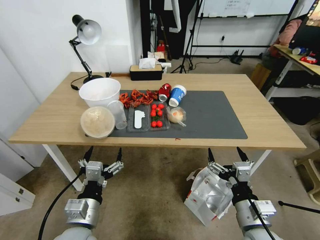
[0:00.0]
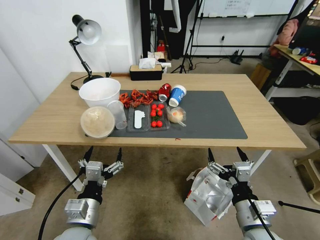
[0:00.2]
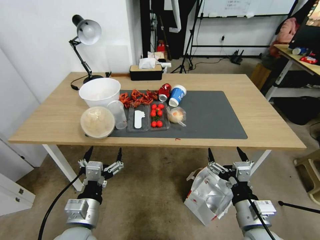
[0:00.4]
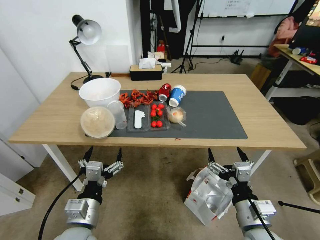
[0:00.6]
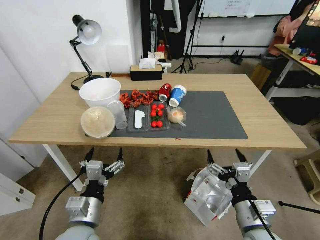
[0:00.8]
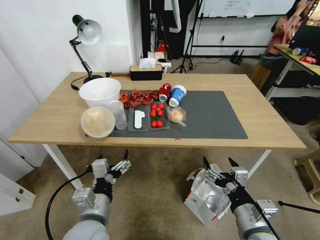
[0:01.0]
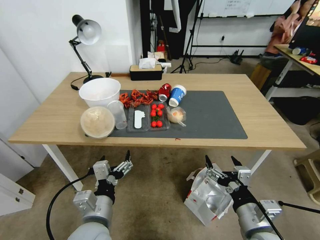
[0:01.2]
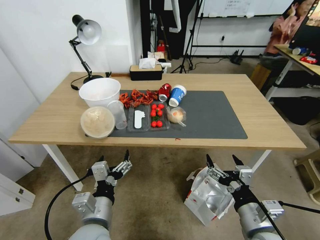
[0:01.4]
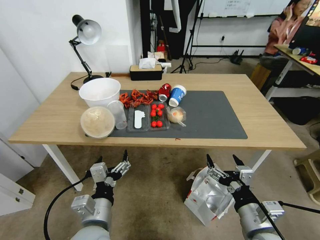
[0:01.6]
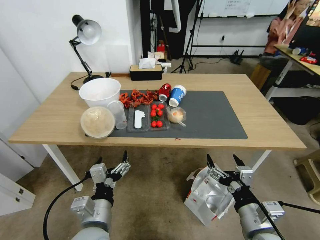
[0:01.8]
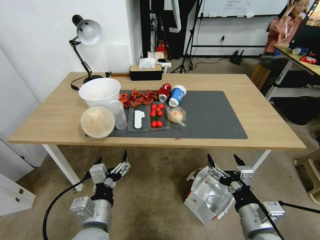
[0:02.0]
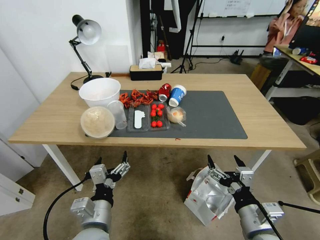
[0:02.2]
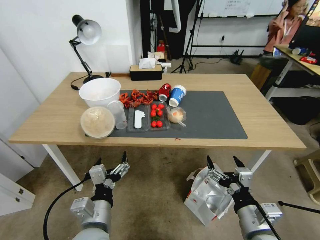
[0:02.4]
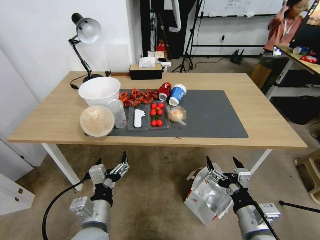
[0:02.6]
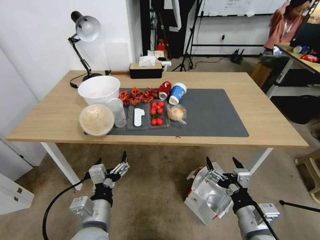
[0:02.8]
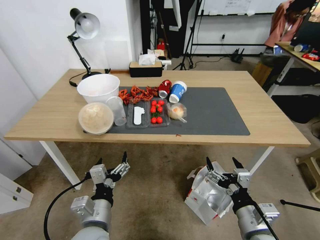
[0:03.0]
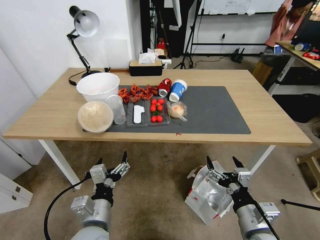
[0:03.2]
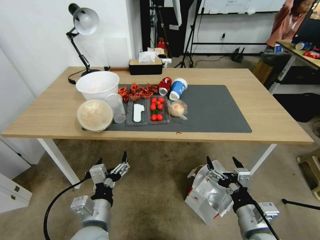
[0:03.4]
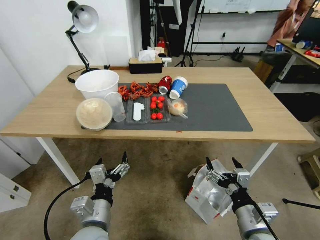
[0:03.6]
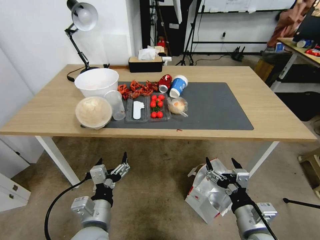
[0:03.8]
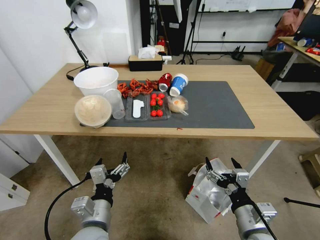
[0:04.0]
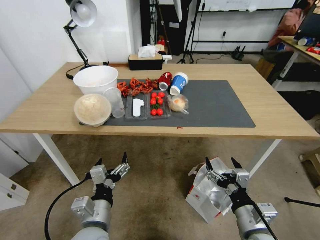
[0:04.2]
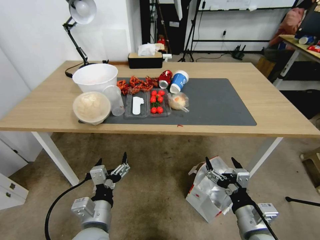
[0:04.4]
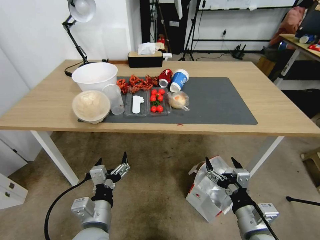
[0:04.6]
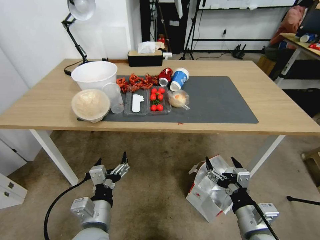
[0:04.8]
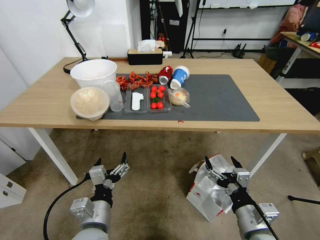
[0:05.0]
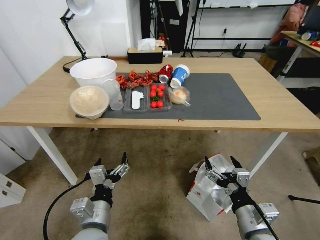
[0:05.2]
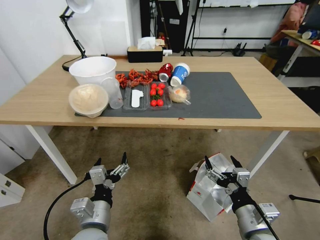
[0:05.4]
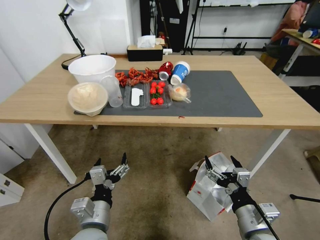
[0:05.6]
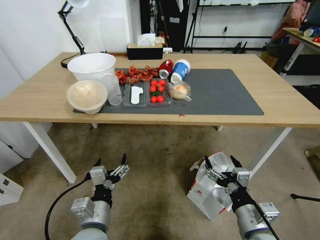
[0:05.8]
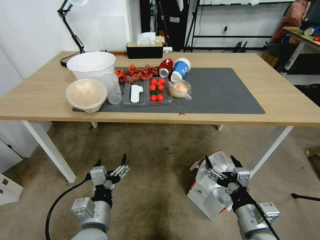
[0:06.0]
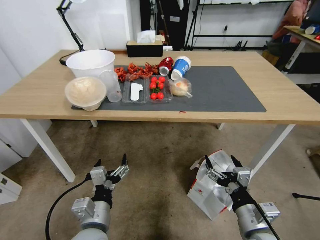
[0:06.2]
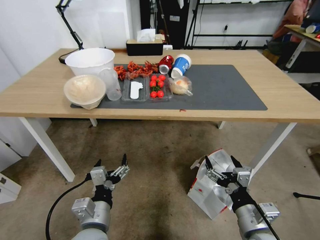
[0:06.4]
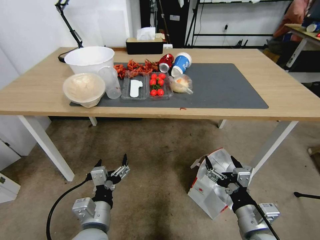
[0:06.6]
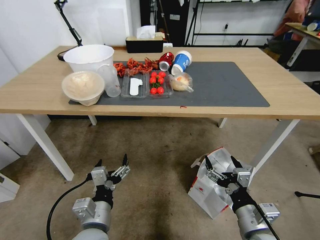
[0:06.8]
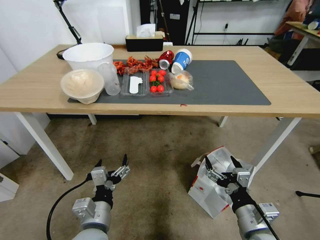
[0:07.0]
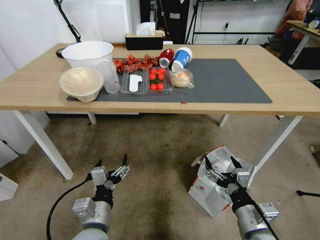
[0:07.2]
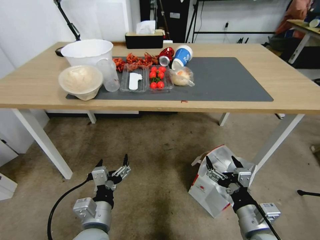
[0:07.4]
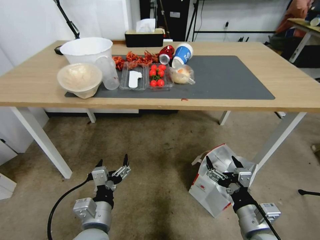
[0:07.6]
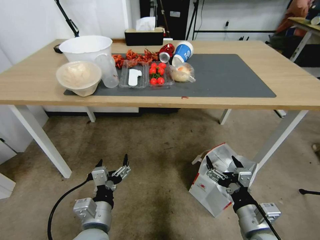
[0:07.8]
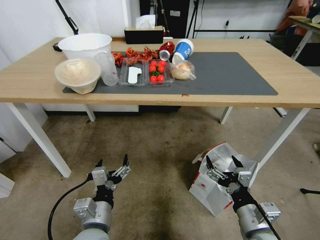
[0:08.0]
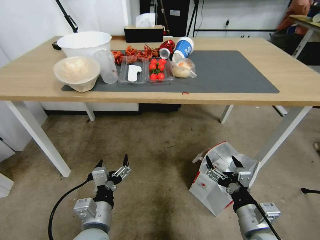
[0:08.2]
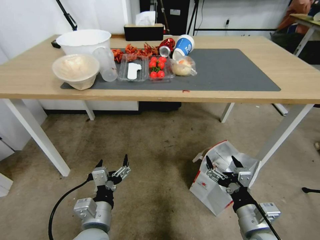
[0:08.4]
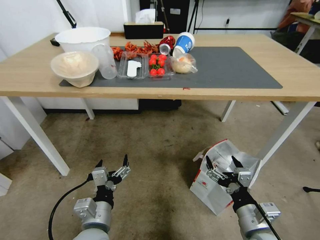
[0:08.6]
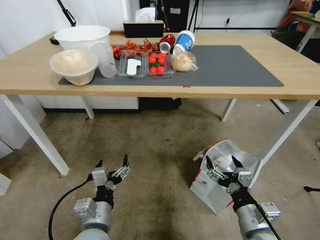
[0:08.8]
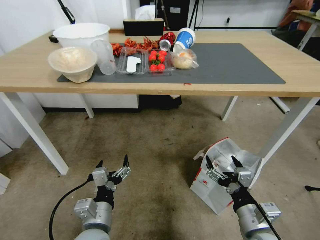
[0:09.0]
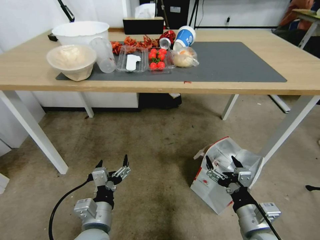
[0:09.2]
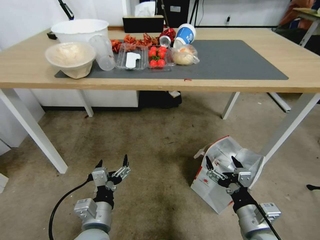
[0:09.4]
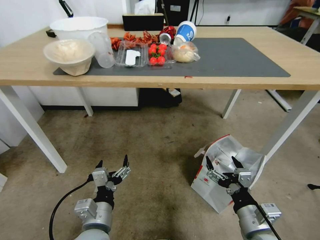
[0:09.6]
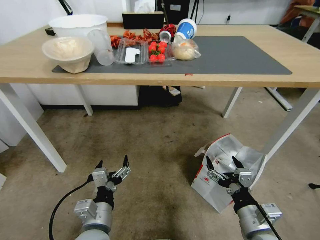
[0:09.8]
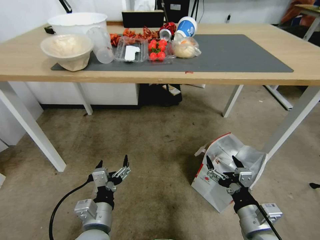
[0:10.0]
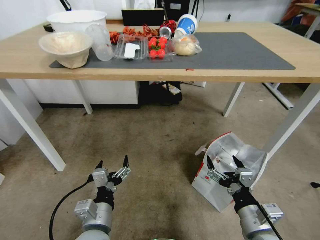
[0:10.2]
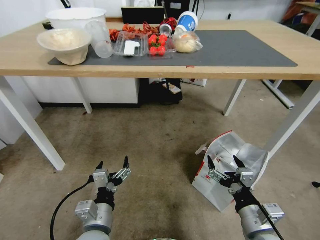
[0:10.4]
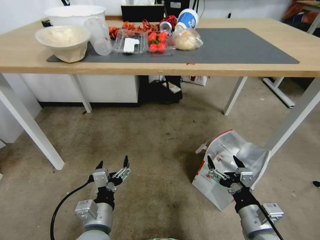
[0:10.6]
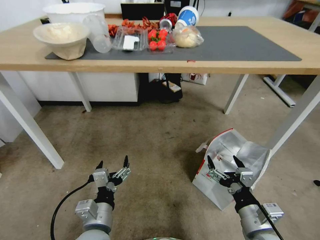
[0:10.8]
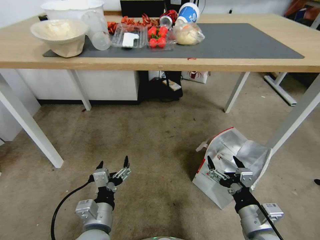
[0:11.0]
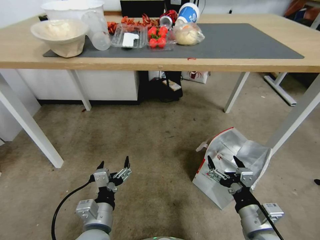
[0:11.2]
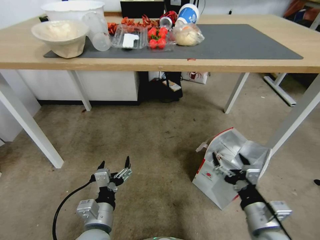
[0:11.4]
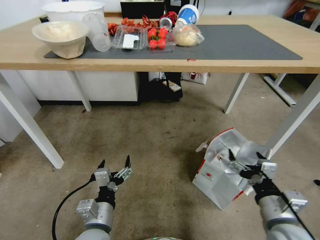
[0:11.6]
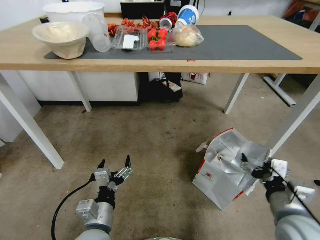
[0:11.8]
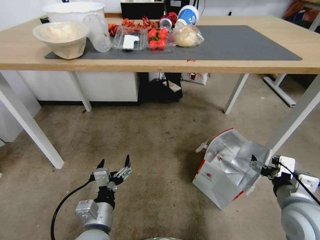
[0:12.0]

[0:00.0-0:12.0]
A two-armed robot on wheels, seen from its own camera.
Task of the whole recording: Pick up the food delivery bag from the floor and place it on the table.
0:10.4 to 0:12.0: The right gripper travels to the right, upward and forward by some 10 cm.

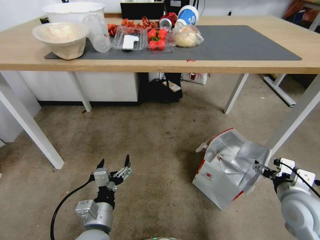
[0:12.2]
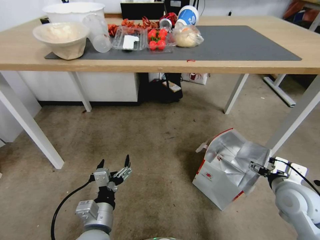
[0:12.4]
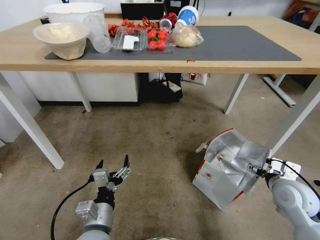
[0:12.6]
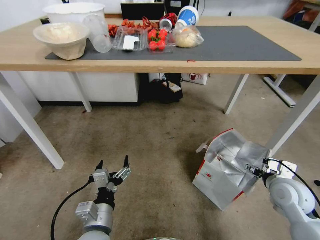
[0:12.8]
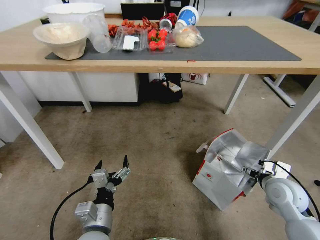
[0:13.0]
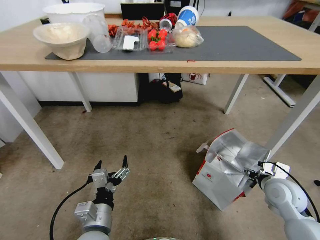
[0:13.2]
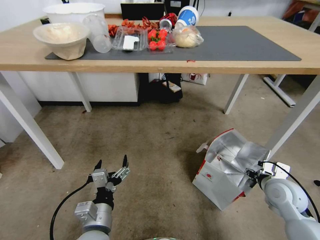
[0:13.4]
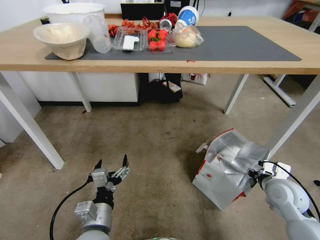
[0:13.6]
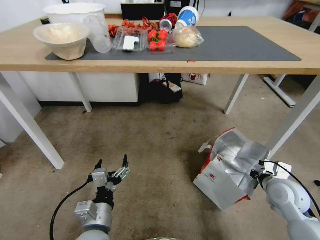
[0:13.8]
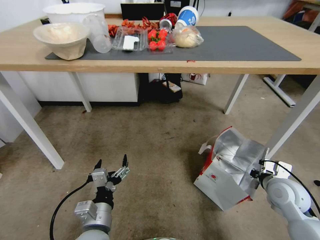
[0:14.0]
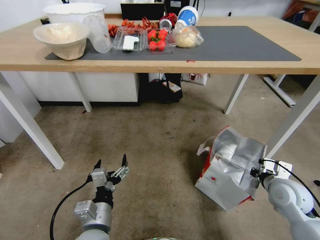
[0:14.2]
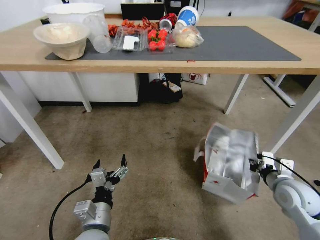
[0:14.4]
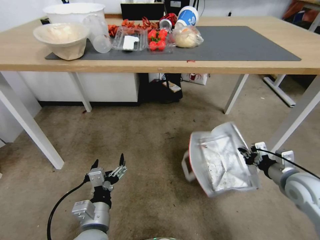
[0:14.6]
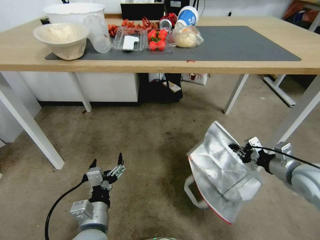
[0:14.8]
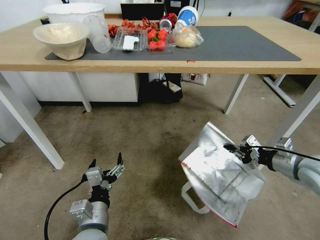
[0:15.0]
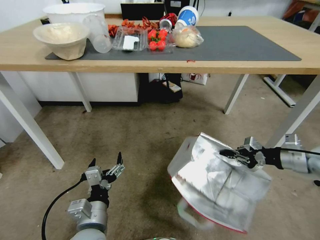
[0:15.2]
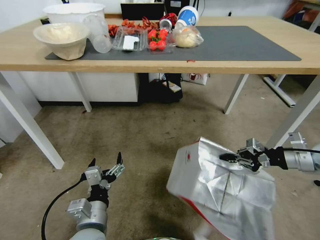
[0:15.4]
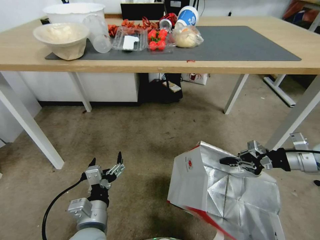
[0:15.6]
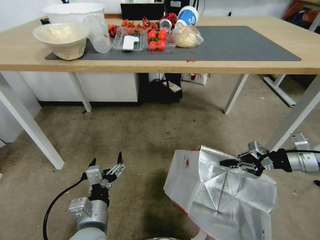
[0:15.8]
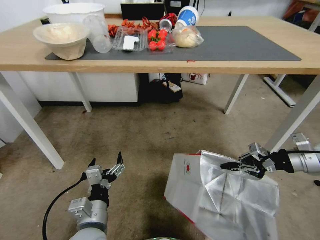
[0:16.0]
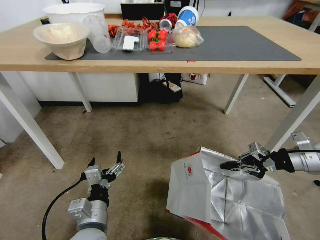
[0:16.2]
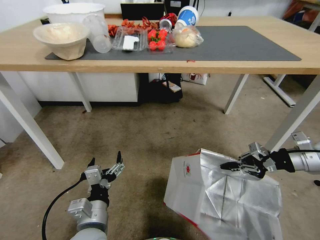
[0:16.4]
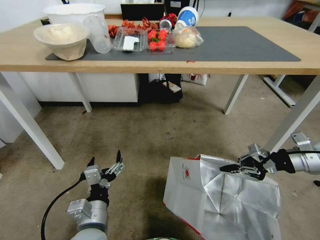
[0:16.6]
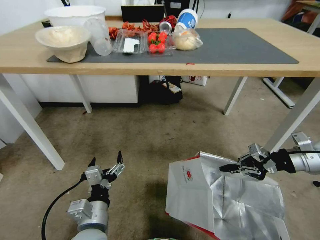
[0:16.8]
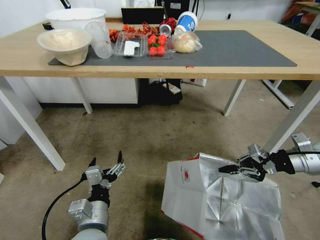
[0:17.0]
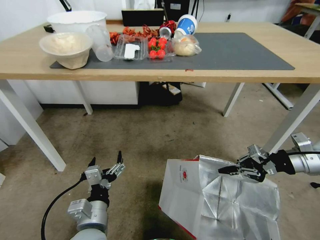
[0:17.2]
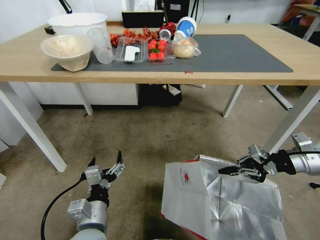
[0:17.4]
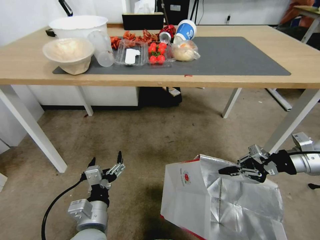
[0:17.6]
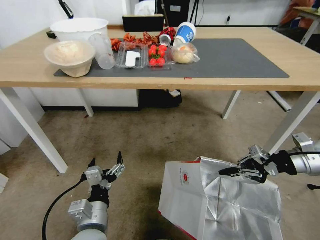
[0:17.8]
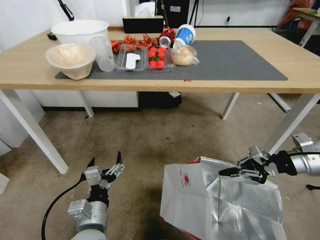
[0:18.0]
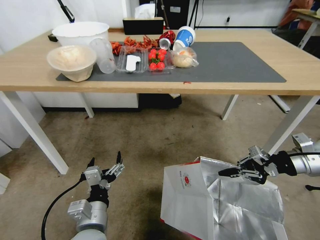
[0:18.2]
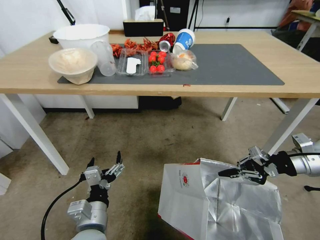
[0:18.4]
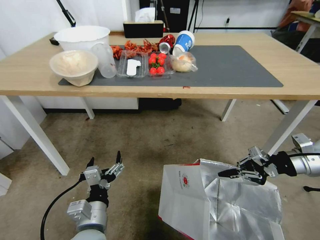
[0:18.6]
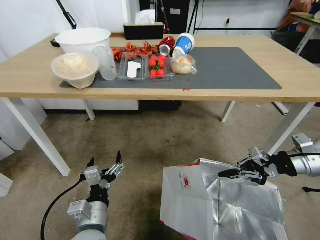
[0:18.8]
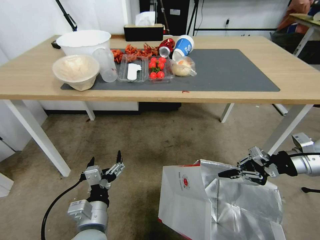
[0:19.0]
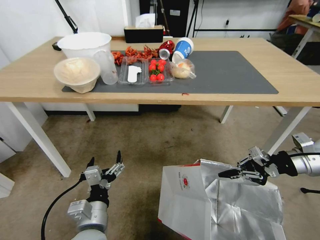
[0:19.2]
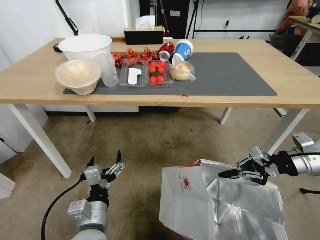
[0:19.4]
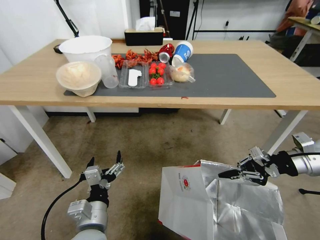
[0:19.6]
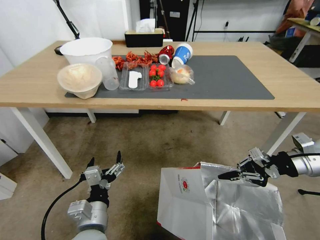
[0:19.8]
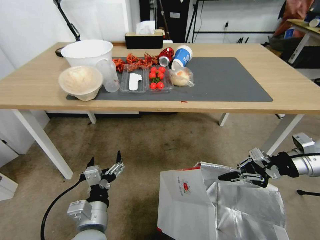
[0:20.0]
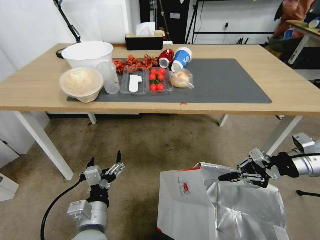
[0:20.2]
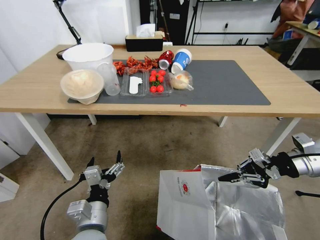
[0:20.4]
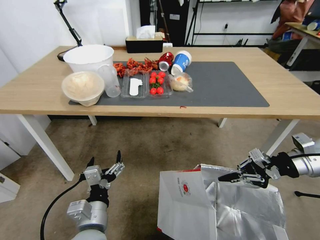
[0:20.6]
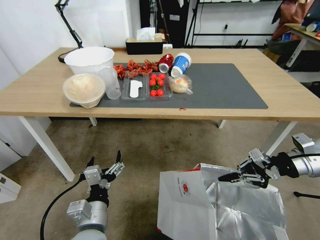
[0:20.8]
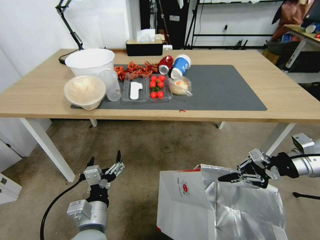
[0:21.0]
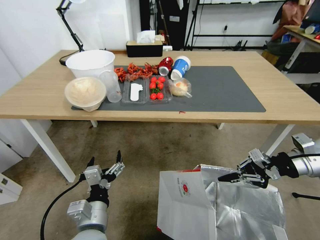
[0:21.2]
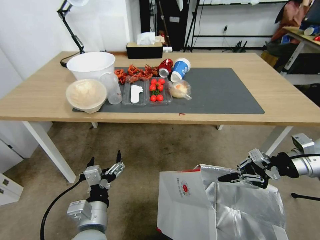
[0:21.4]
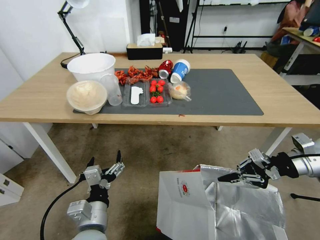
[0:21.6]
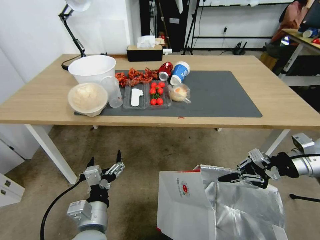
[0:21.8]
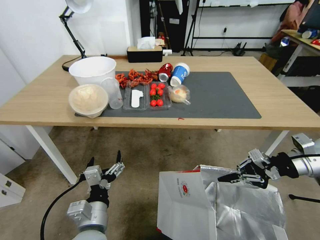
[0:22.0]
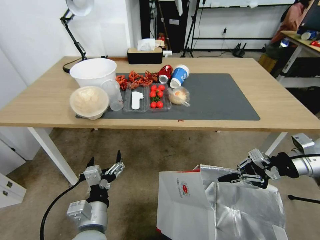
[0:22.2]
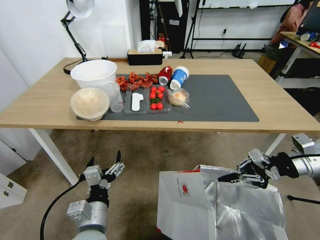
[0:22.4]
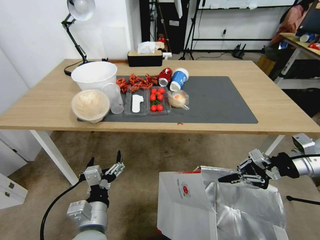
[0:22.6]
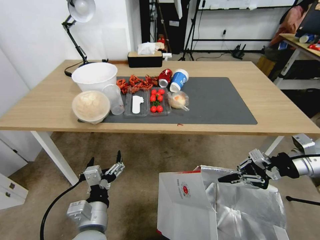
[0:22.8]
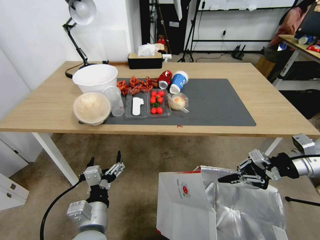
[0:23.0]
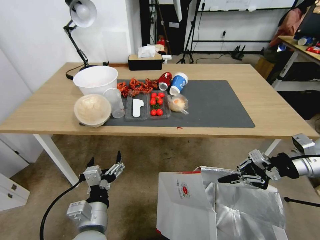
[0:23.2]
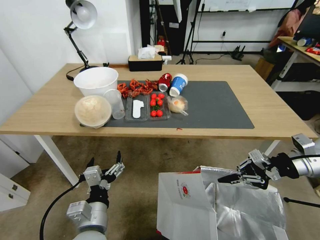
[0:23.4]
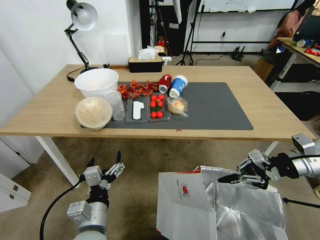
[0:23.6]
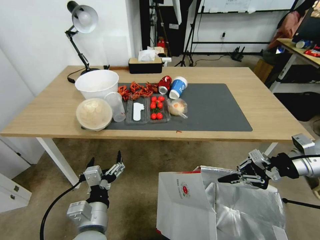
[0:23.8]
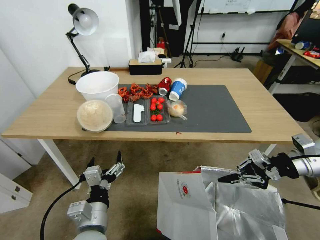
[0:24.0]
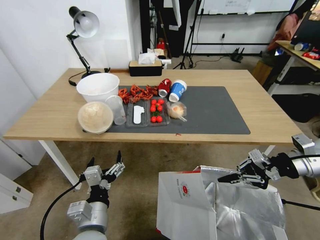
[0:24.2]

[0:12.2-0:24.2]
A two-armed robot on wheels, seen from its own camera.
Task of the whole recording: Pick up the food delivery bag from the floor and place it on the table.
0:12.2 to 0:13.8: The right gripper heads forward, covering about 5 cm, and closes up.
0:13.8 to 0:15.2: The right gripper goes approximately 15 cm upward and to the right.
